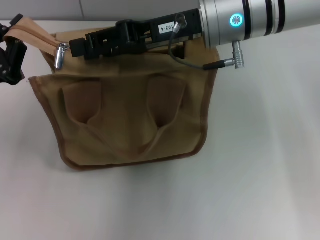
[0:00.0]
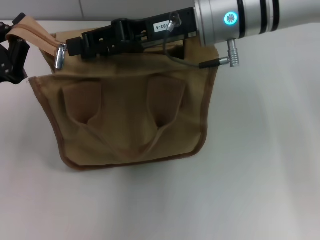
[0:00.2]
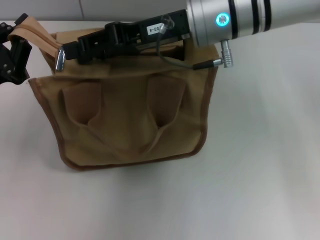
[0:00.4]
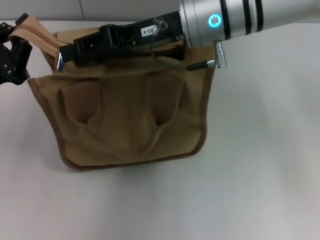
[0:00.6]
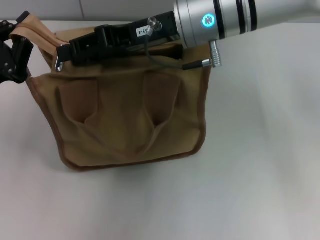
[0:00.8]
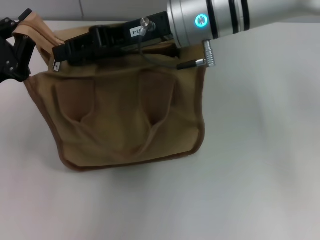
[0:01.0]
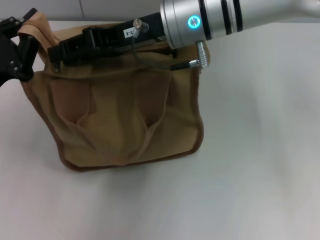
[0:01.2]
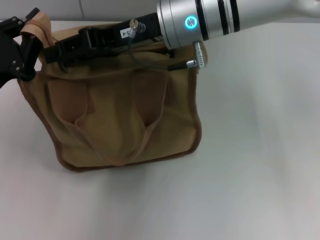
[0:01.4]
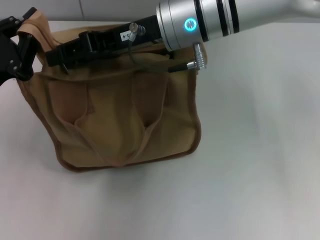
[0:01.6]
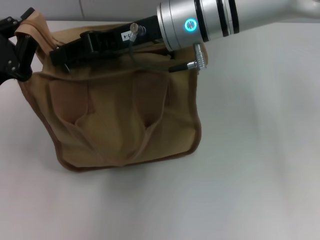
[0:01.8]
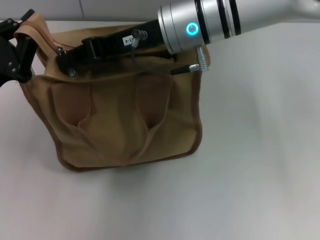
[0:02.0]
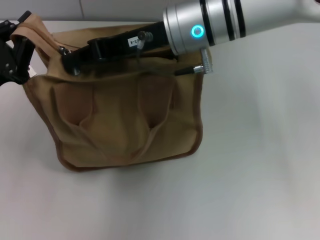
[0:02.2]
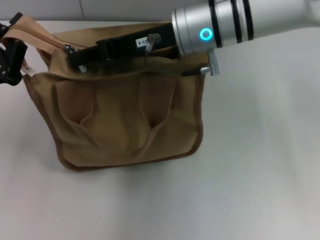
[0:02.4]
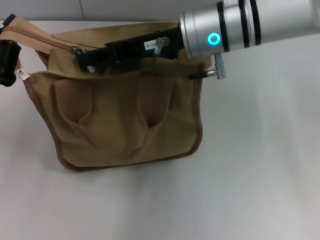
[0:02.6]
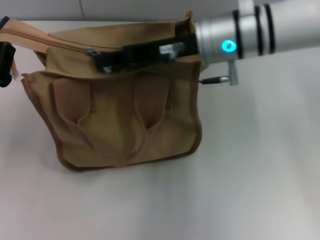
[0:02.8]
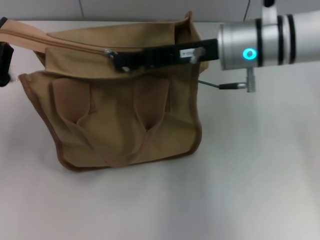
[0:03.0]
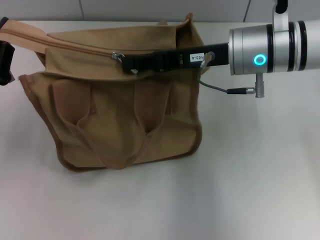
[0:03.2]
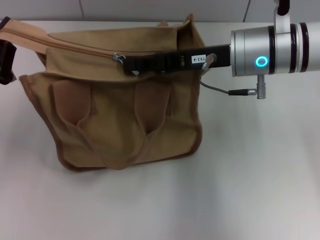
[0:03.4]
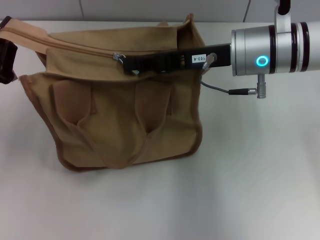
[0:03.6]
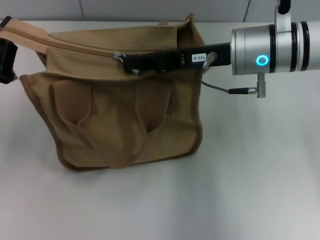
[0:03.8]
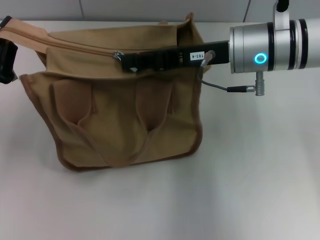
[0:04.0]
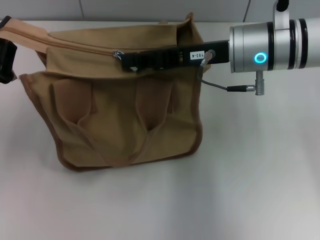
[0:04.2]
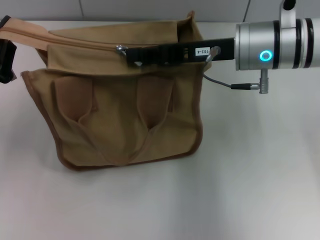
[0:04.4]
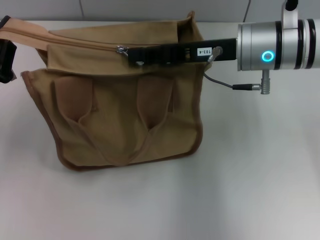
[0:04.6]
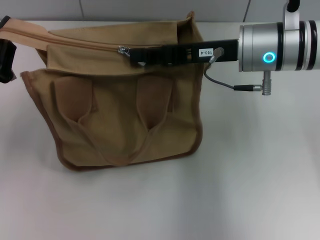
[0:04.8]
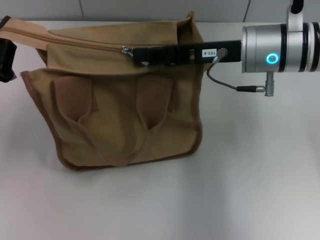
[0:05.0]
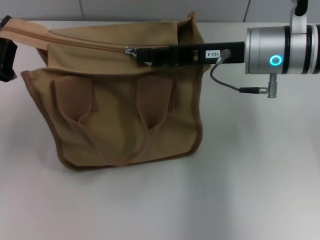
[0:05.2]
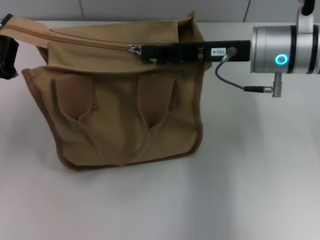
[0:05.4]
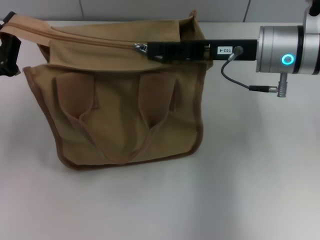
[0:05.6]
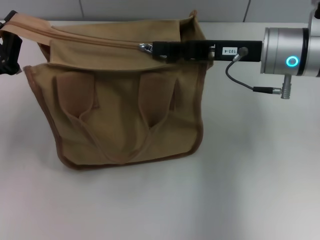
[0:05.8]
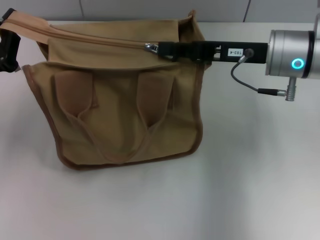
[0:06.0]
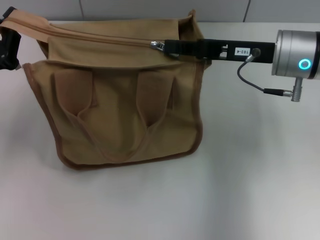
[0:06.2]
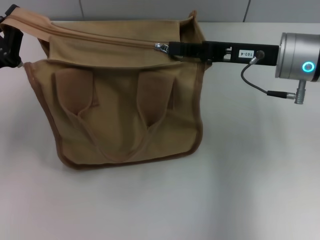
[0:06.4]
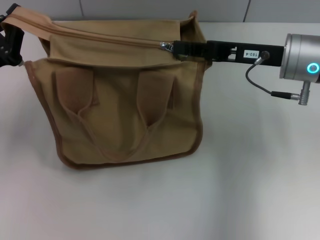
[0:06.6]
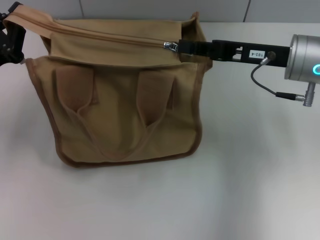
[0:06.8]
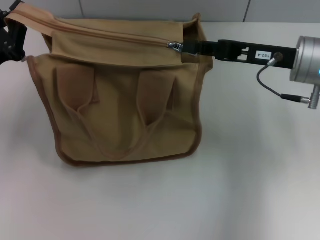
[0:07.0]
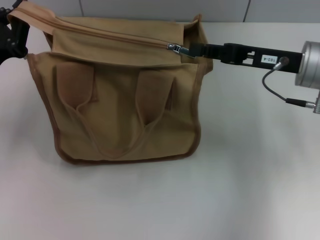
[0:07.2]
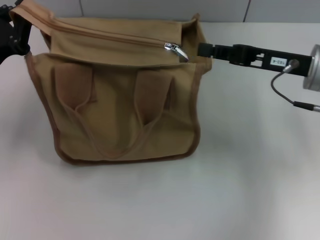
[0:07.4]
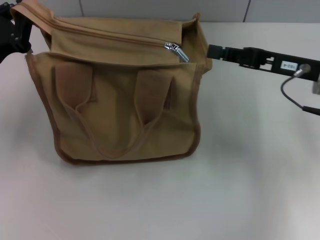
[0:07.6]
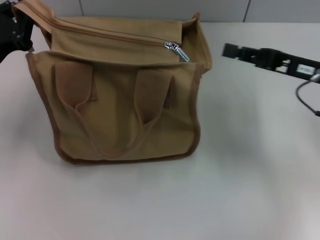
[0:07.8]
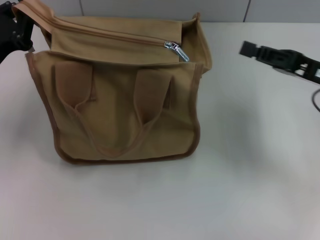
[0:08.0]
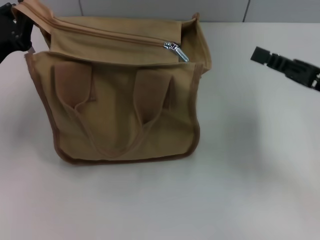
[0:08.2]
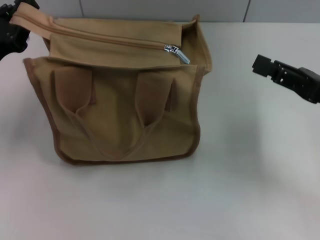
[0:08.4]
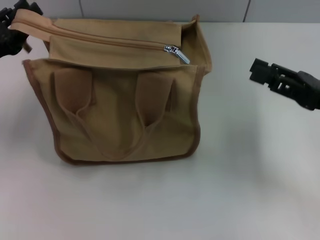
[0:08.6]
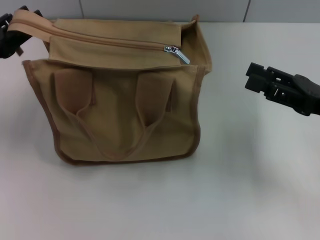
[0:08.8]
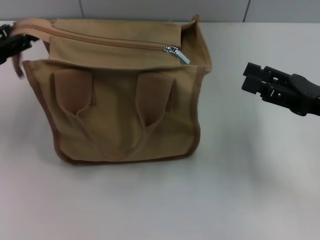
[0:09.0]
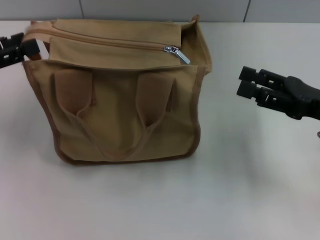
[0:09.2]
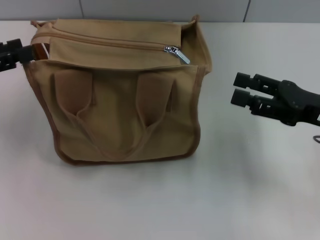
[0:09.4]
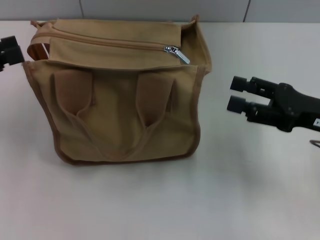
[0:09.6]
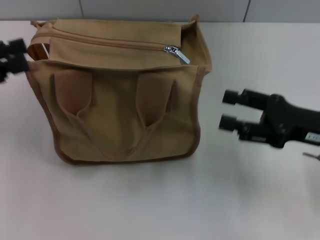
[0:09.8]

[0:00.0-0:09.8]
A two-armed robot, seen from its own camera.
Step, 0:00.0 to 0:07.6: Pull up the zipper with your right hand.
Step, 0:07.8 to 0:09.4: Grab the zipper with your left hand.
0:00.0 to 0:01.4: The grippers make only small movements.
0:01.4 to 0:02.8: The right gripper is displaced to the right by approximately 5 cm, and closes.
0:02.8 to 0:04.2: There are only small adjustments of the grippers.
0:04.2 to 0:05.6: The grippers move only a little.
0:05.6 to 0:07.0: The right gripper ends up some 5 cm from where it was.
0:07.0 to 0:08.4: The right gripper travels to the right and backward by some 10 cm.
0:08.4 to 0:09.8: The left gripper moves upward and to the left, some 10 cm, and opens up. The right gripper opens up.

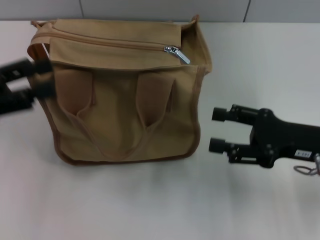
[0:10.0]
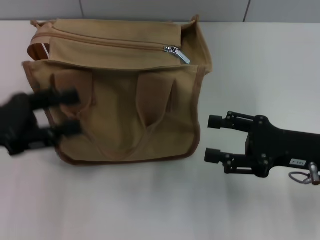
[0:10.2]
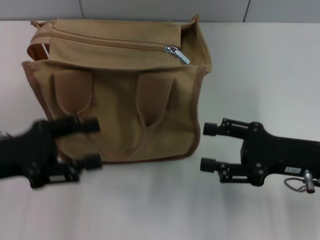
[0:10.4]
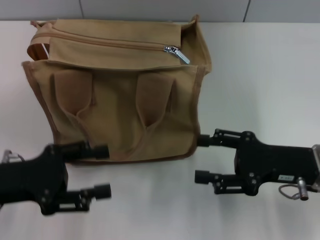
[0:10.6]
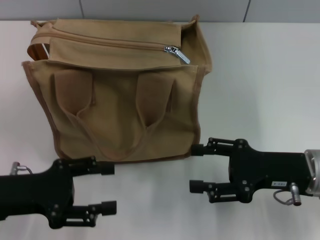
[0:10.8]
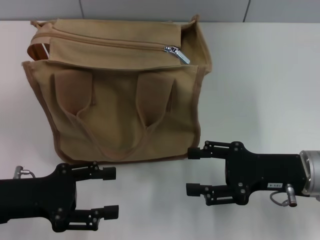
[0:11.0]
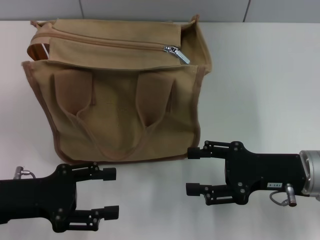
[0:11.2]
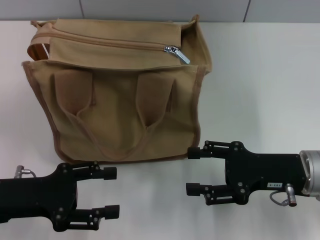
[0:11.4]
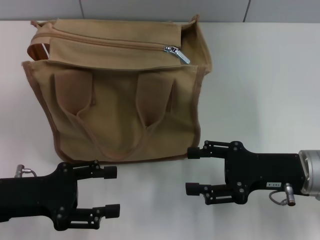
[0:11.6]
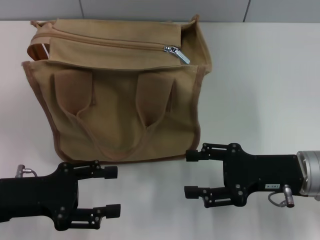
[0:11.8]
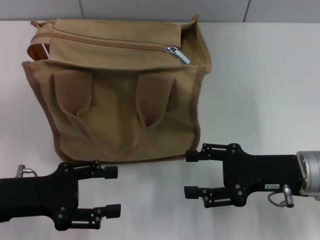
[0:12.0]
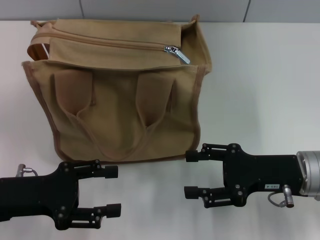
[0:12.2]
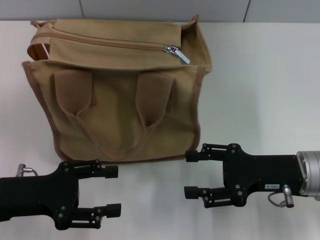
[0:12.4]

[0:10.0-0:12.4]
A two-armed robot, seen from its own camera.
0:10.0 to 0:11.2: The left gripper moves downward, to the right and backward, some 15 cm.
0:11.2 to 0:12.4: Neither gripper changes place.
